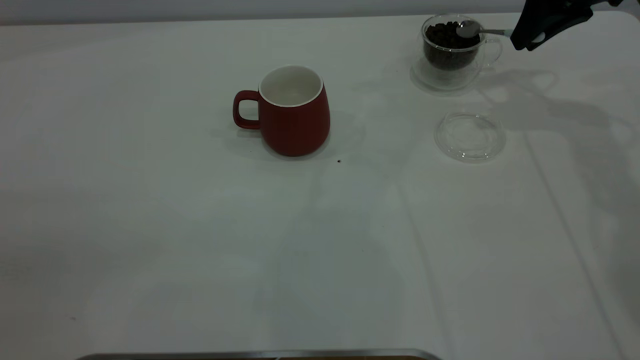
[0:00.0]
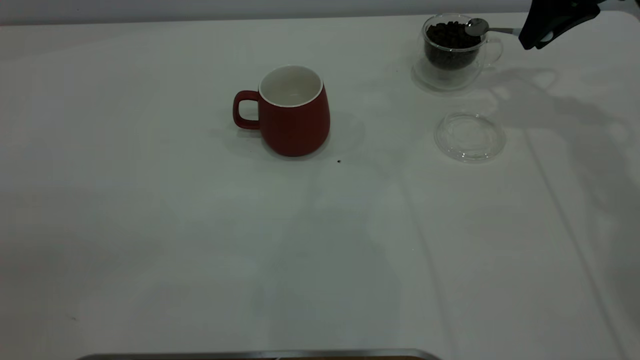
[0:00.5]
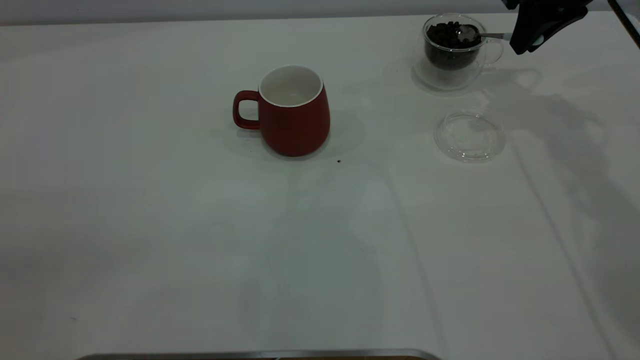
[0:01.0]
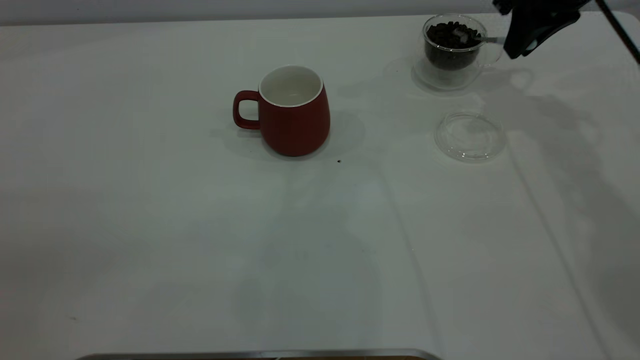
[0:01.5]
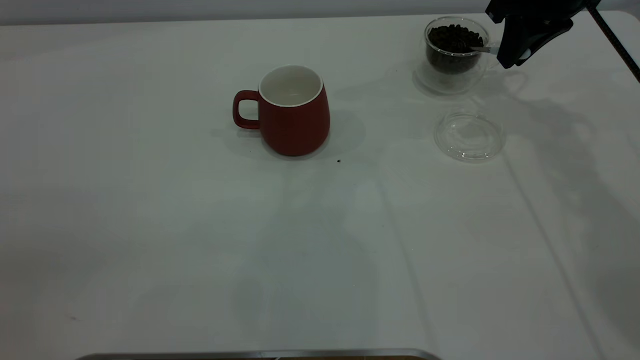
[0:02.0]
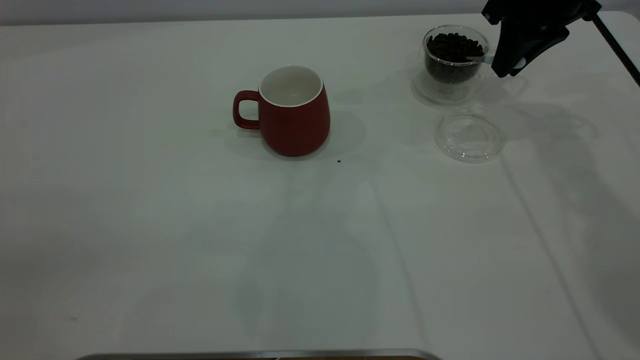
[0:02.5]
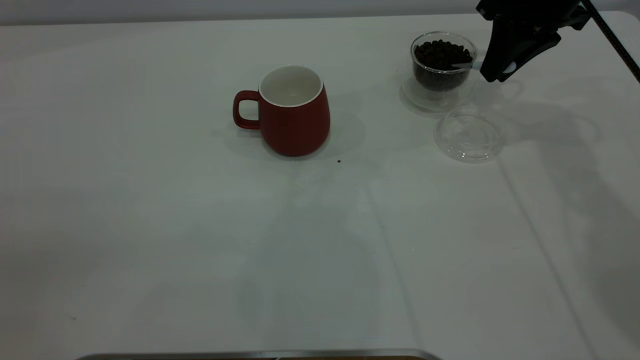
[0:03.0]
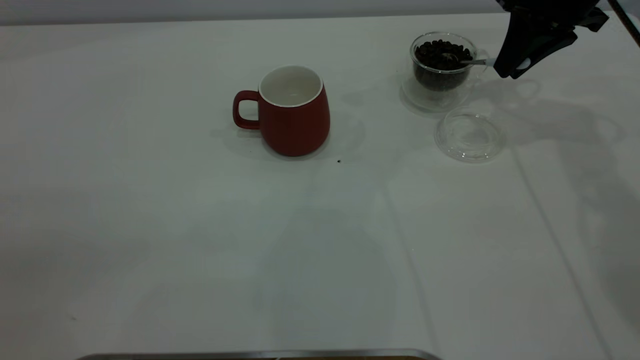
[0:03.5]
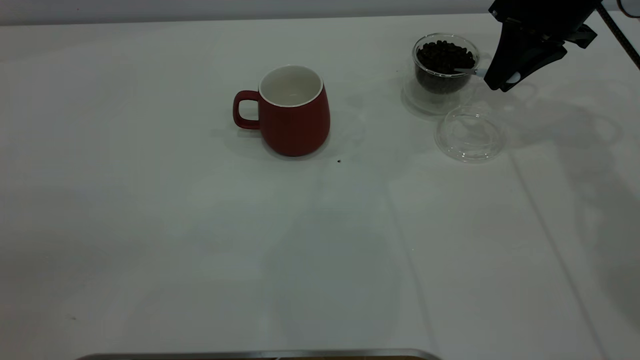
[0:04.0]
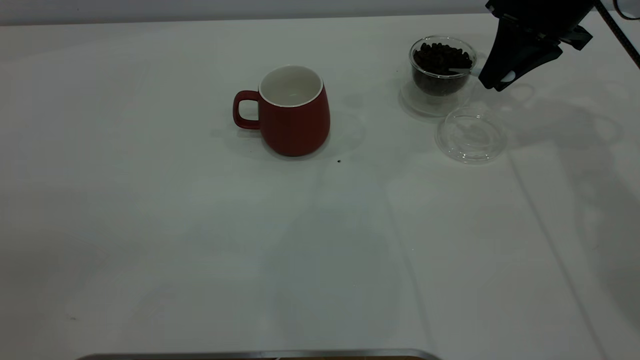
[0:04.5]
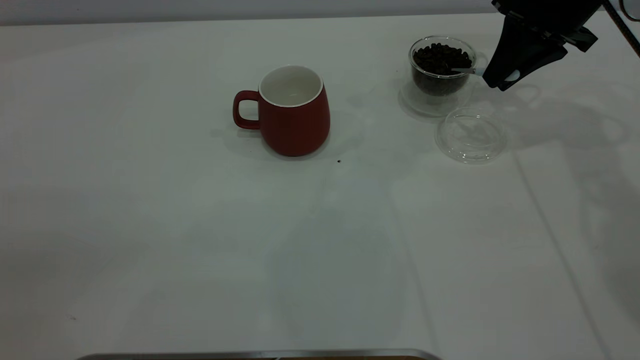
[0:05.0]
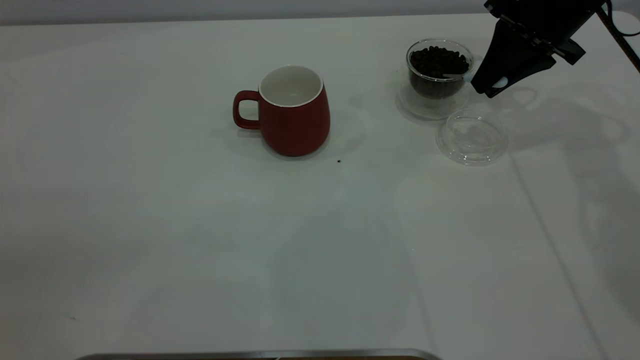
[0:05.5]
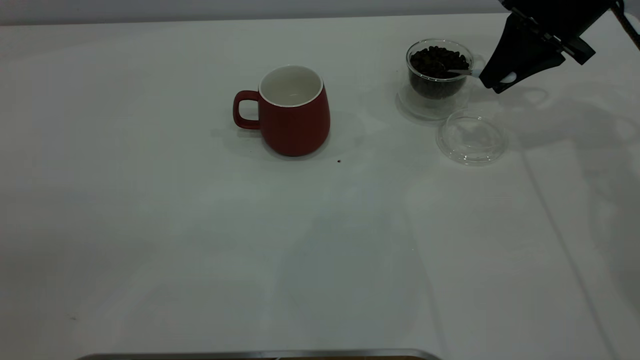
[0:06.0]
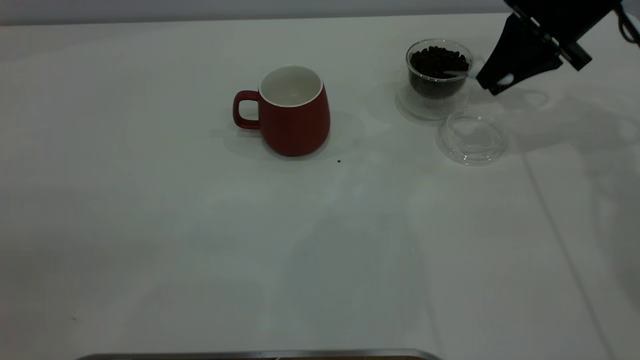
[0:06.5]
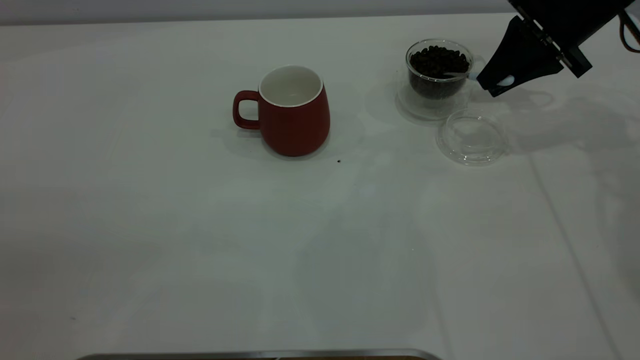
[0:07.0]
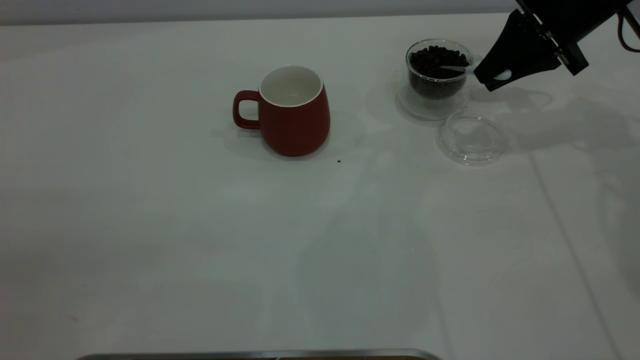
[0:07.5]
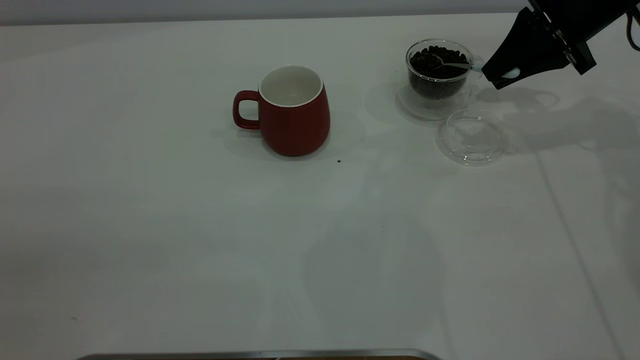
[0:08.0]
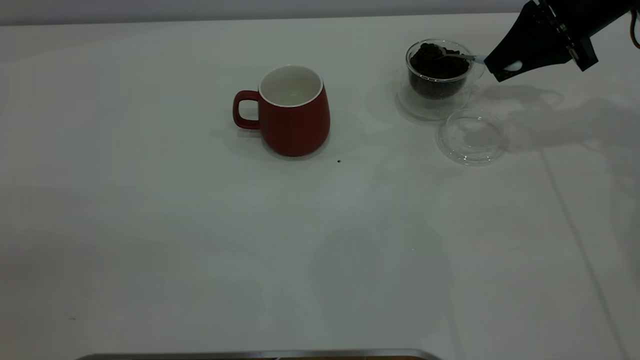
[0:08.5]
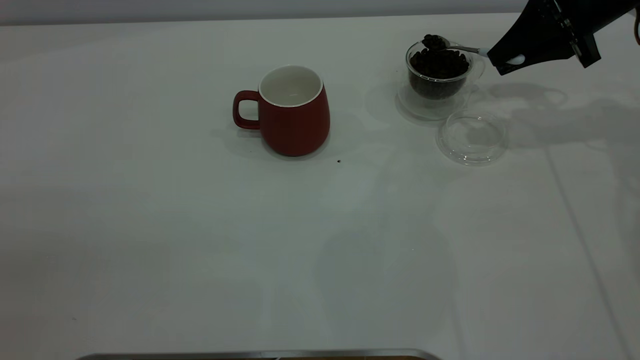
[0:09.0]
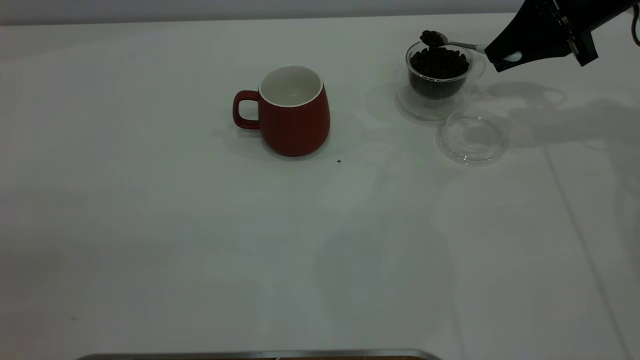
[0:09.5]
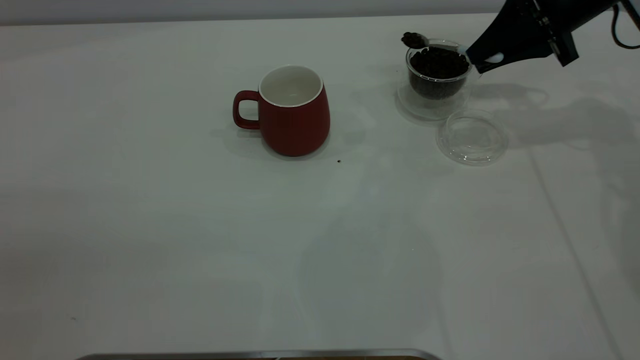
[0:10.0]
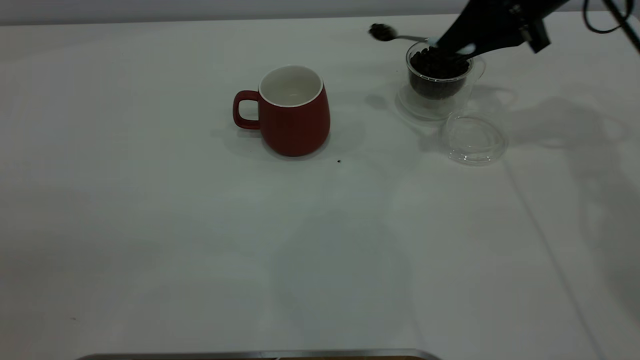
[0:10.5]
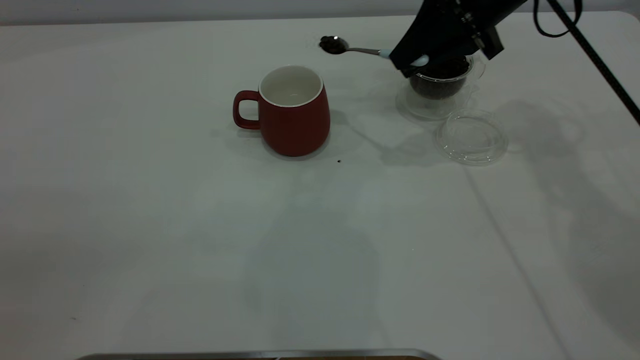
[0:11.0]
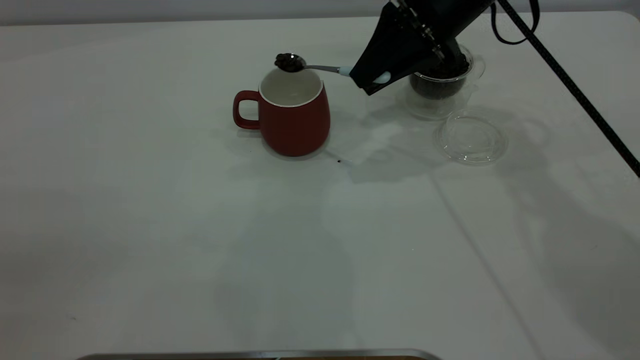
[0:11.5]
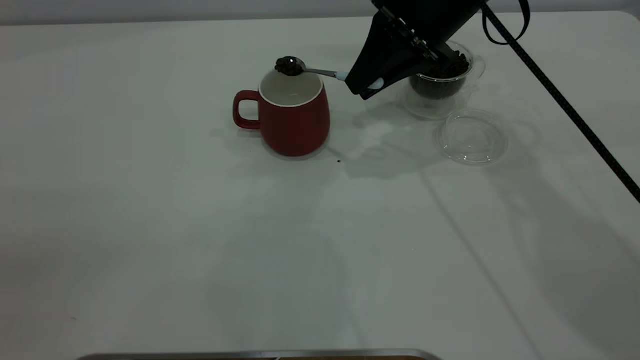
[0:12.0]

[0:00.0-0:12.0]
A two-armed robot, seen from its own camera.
Task of the whole recording: the left gripper place the red cup in the center of the table, the right gripper take the blue spoon from the cup lid and scoop out the coffee beans from the coffee cup and put them into the red cup, the right gripper put the spoon back into the cup lid.
0:00.0 to 0:04.0: The grippers move only a little.
0:04.0 to 0:06.0: The grippers stay close to where they were, moving slightly.
0:06.0 to 0:10.0: There are only small adjustments of the grippers.
0:10.0 to 0:12.0: The right gripper moves to the left, about 15 cm.

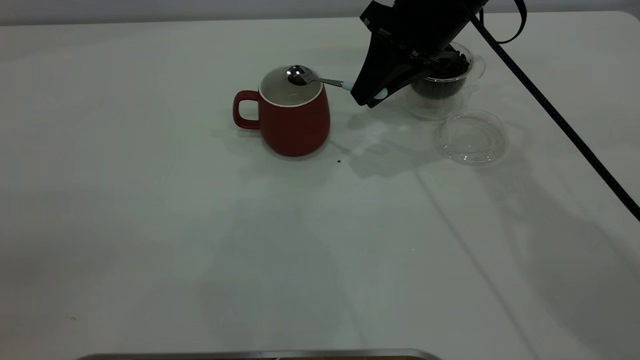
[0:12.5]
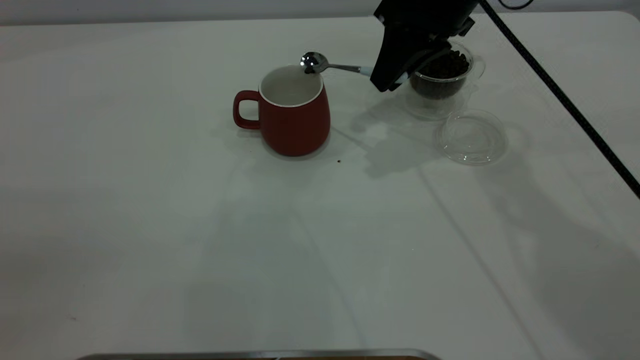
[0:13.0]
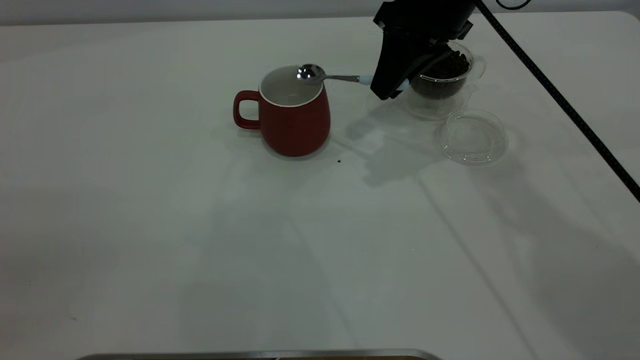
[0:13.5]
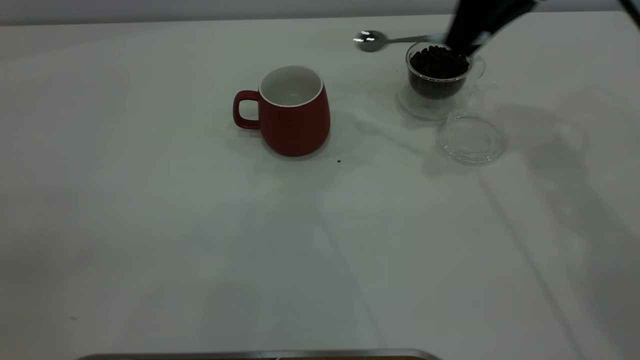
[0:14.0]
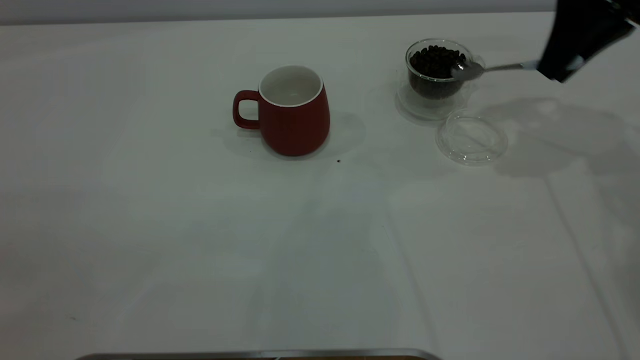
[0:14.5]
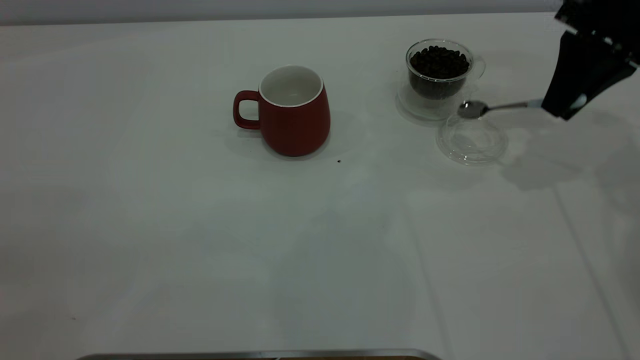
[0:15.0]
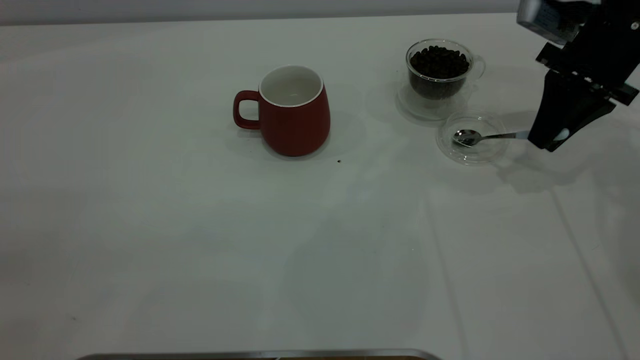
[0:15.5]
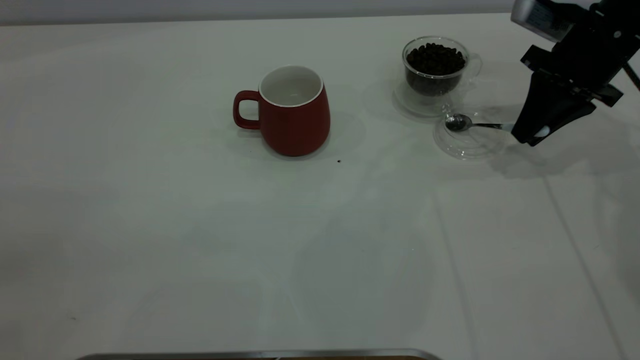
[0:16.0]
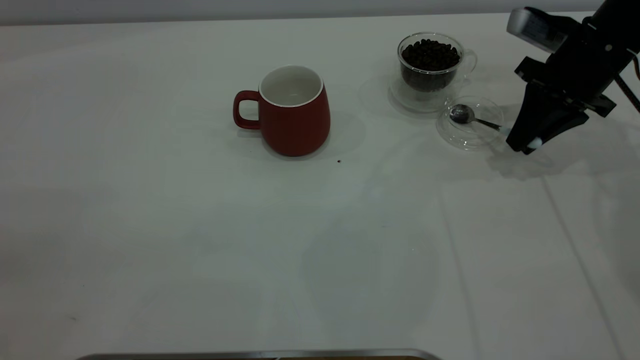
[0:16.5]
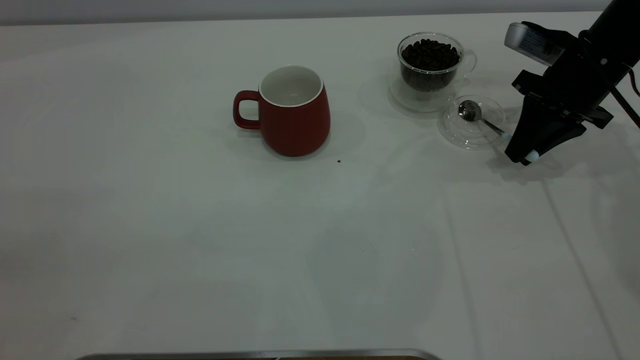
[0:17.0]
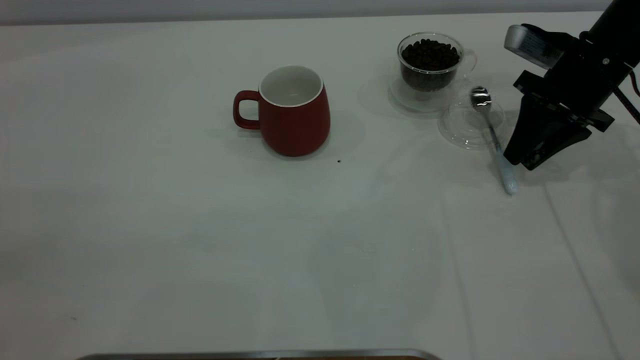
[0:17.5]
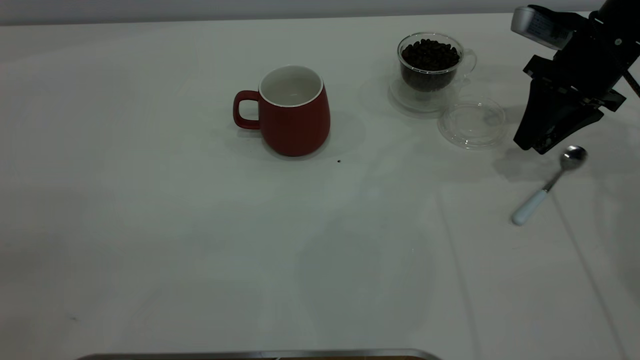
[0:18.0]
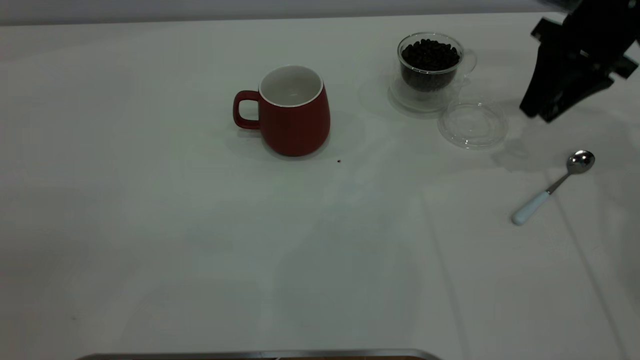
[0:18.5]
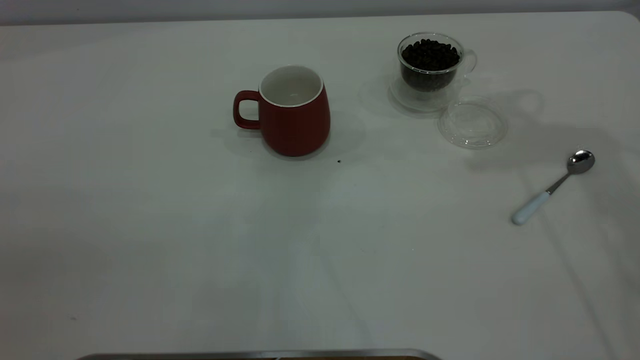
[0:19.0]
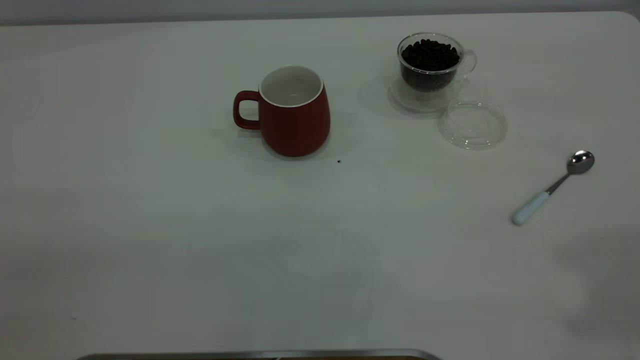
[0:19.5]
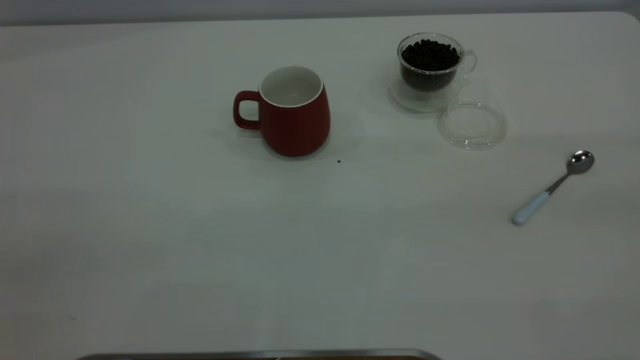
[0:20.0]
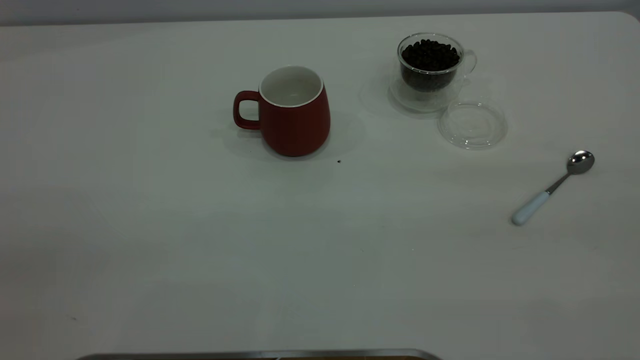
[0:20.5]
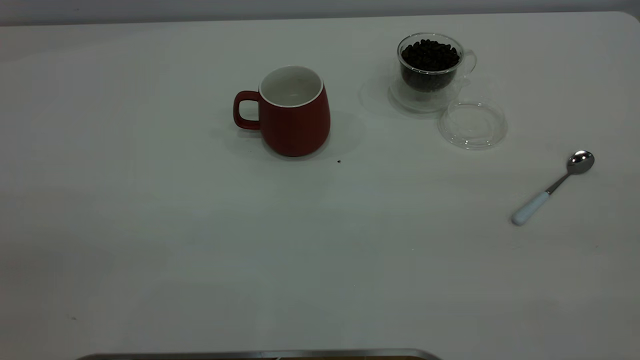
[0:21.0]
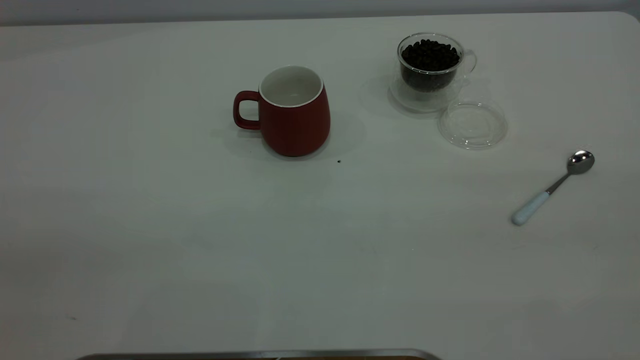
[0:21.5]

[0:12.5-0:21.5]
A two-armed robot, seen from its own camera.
Task of the whole recording: the left gripper place the red cup in the center of the table, the right gripper take the blue spoon from the cup lid and scoop out the coffee beans from the coffee cup and put them into the red cup, the right gripper put the spoon back into the cup lid.
Step, 0:14.0 to 0:18.0: Place the spoon back in its original place.
0:12.5 to 0:14.5: The right gripper moves to the right, about 15 cm.
0:14.5 to 0:17.0: The right gripper moves downward, some 10 cm.
0:17.0 to 0:19.5: The right gripper is displaced upward and backward by approximately 40 cm, and opens up.
